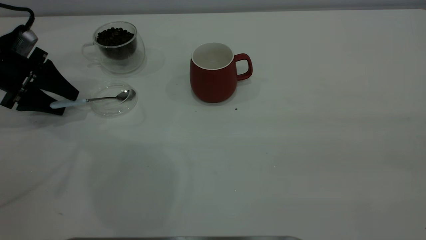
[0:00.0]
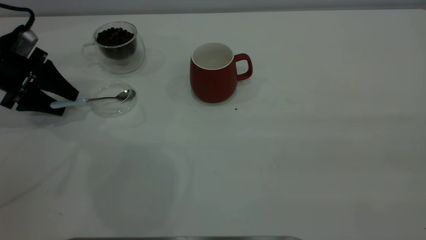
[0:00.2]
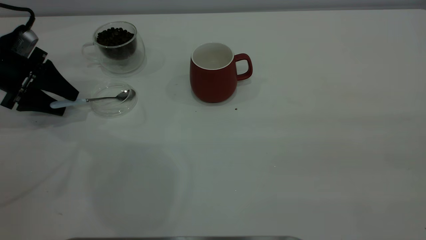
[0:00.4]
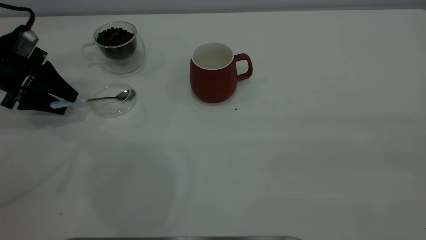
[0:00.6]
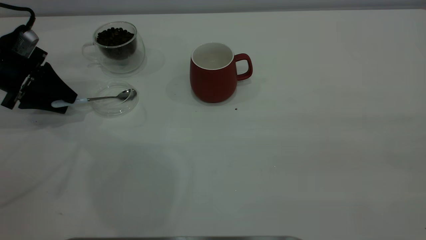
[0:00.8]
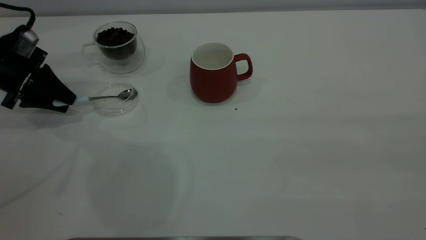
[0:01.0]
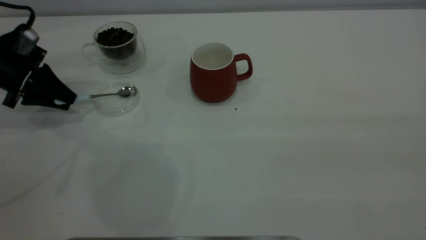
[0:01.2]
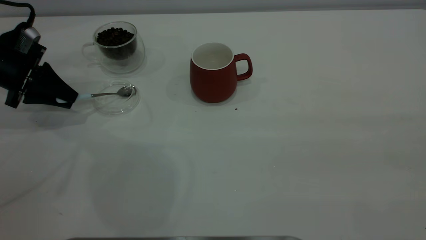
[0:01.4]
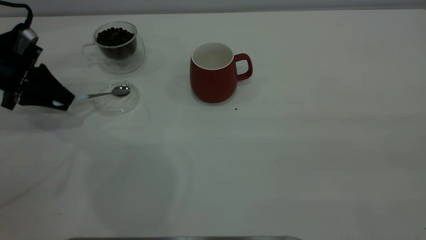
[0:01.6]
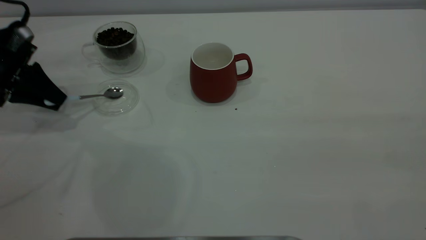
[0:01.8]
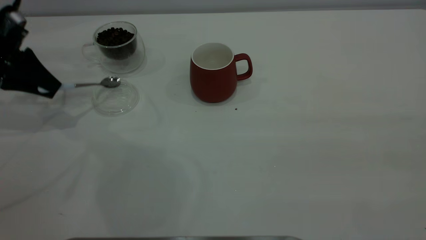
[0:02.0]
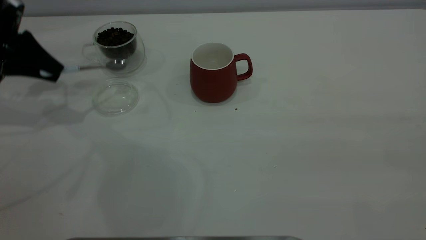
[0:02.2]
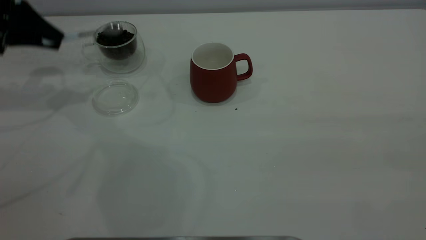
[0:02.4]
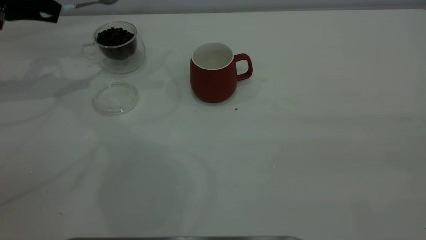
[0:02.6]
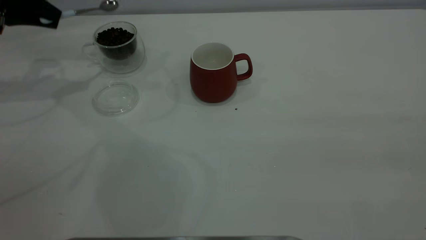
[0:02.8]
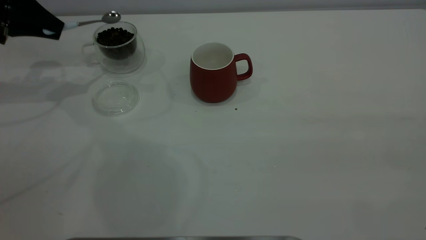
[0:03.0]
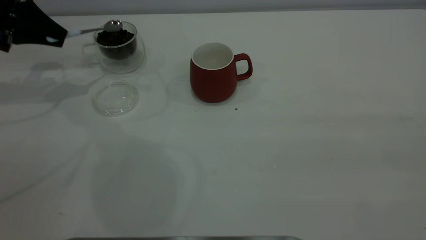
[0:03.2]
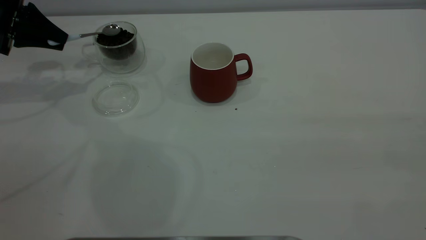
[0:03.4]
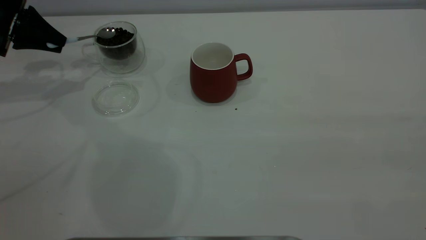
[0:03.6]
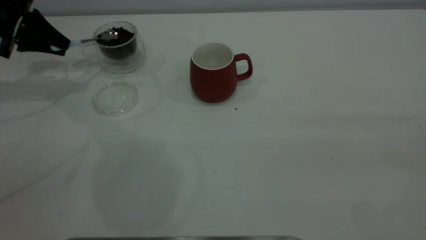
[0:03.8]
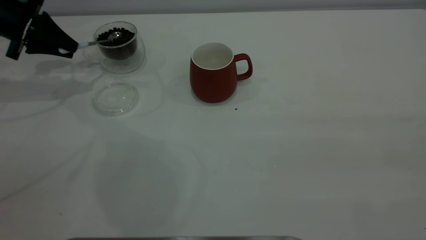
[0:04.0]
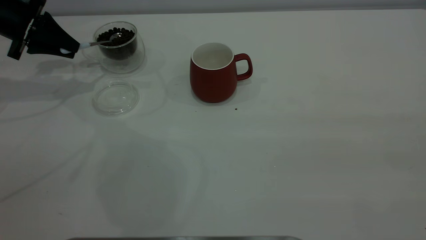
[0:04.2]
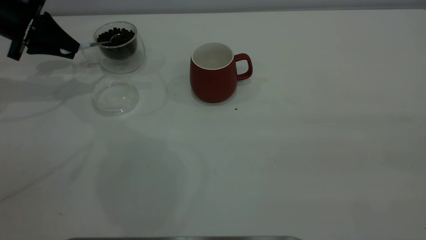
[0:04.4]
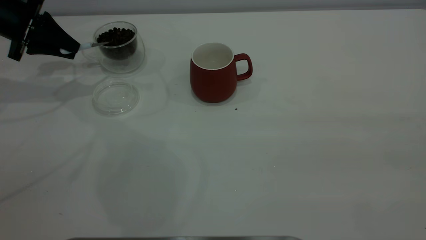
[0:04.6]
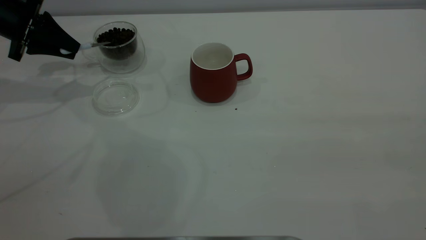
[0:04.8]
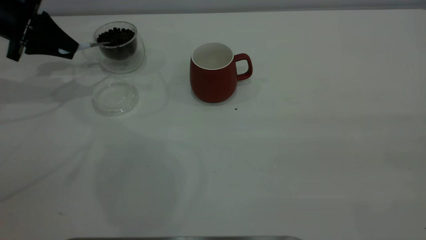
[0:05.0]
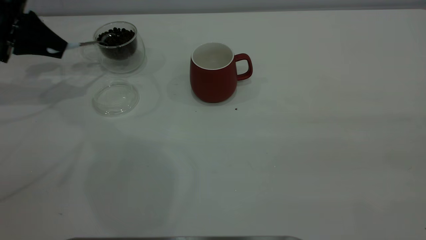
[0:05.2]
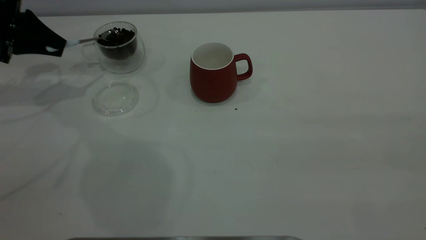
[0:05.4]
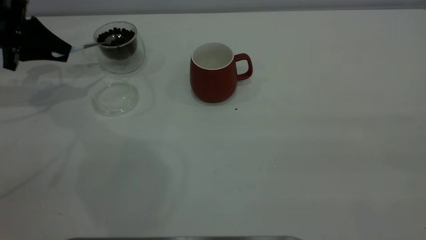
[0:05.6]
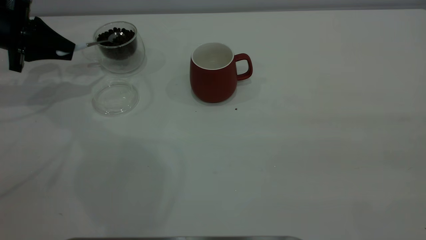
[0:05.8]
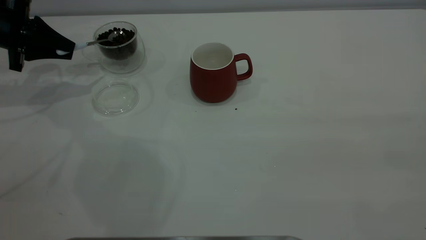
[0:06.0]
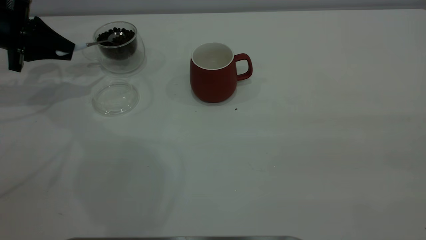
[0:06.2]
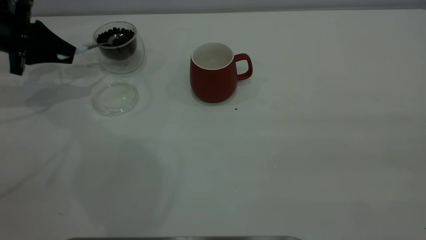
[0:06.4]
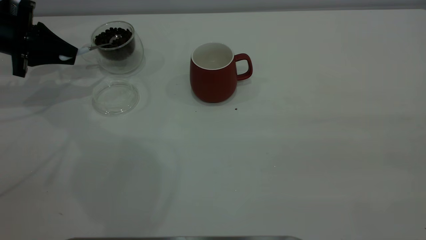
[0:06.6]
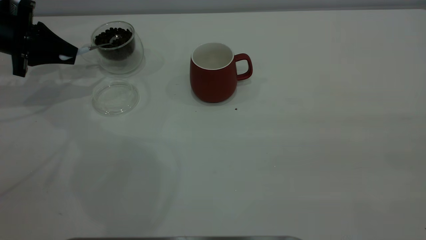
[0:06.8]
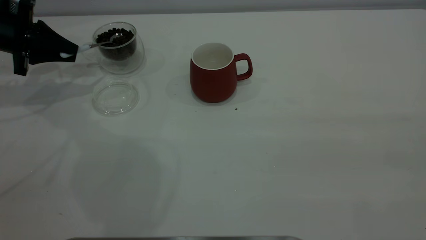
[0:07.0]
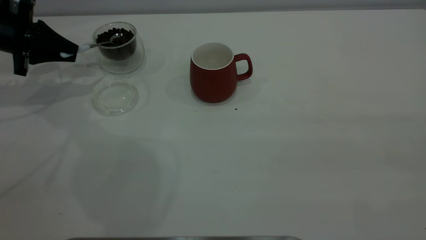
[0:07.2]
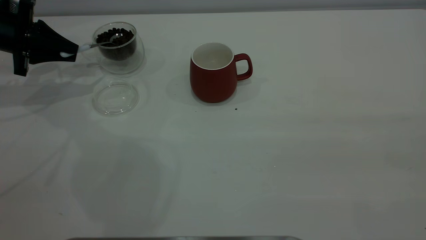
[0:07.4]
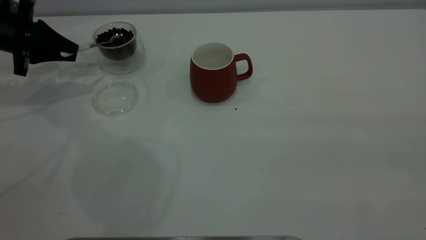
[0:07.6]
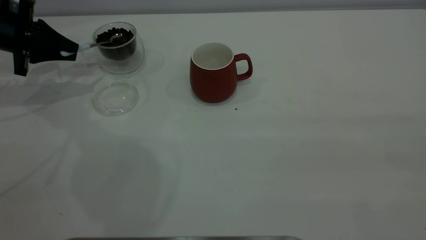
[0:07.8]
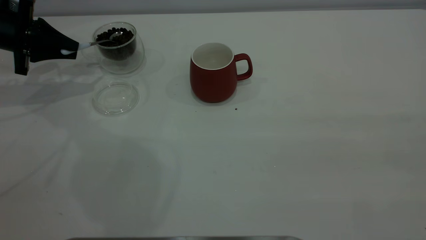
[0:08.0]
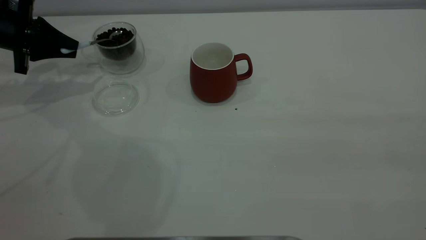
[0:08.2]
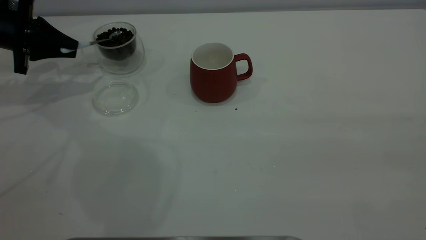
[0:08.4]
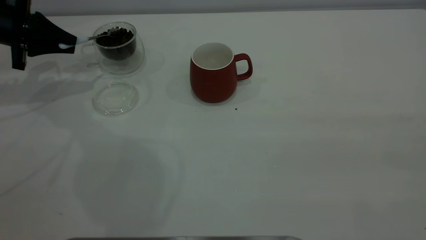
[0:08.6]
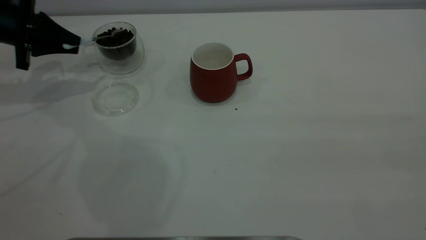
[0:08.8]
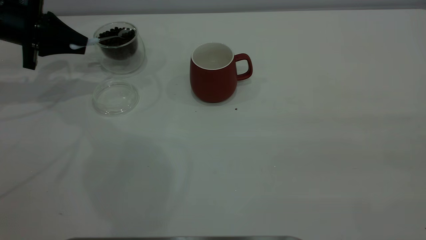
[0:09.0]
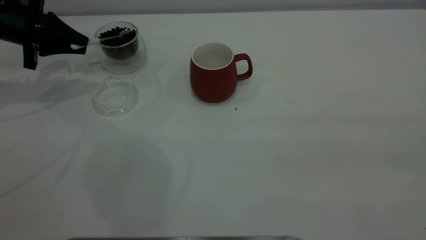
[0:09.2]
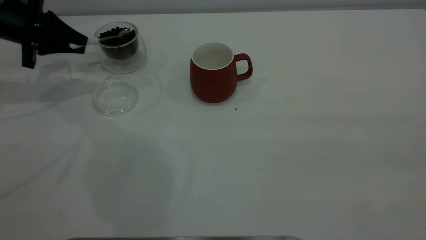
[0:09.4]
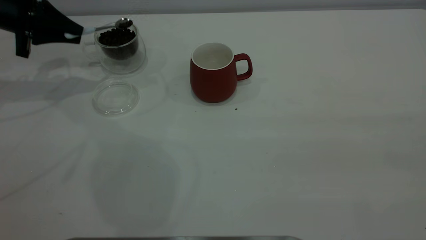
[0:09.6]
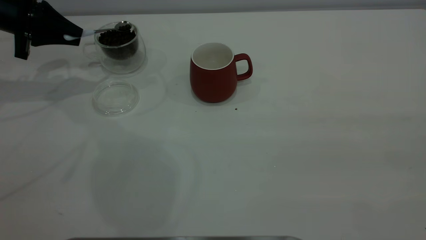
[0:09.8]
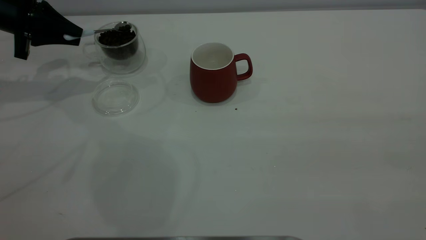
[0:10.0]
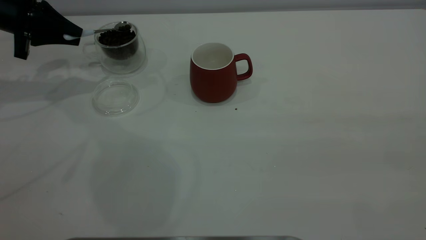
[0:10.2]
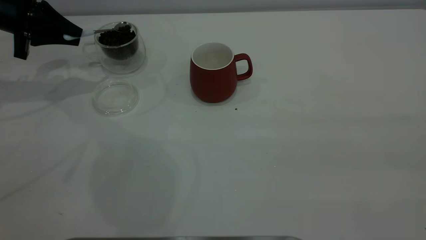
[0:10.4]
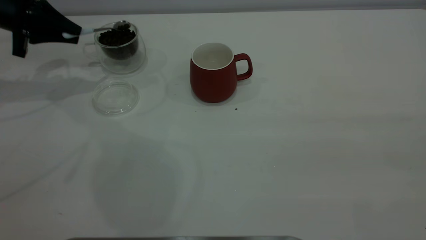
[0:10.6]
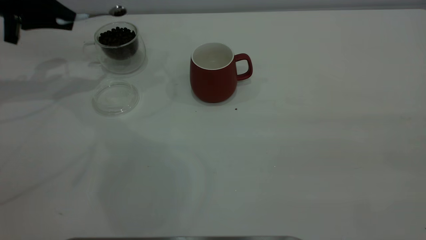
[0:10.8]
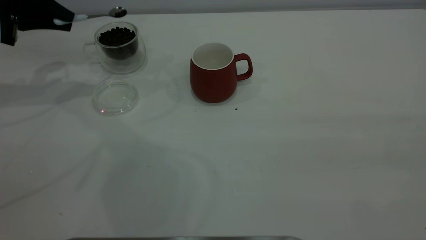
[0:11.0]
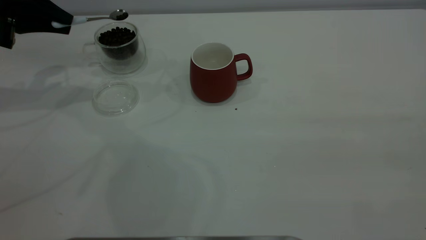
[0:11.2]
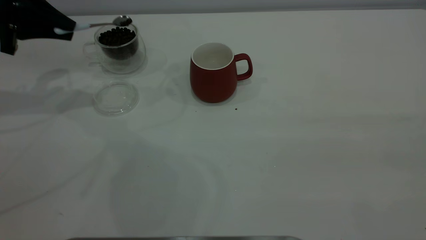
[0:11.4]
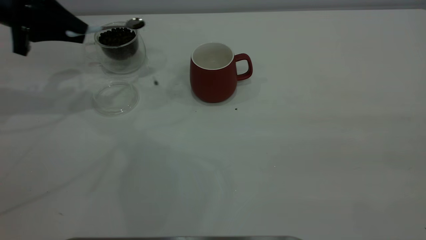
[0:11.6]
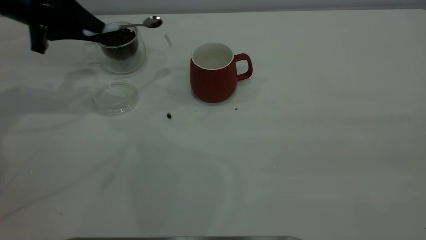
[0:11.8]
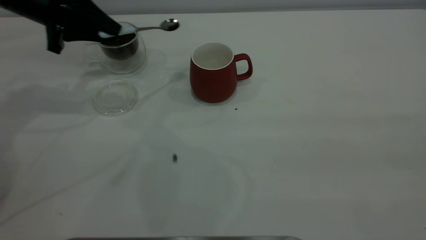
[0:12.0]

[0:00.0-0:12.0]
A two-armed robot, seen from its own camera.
Task of the whole recording: the right gripper place the red cup in the center of the table, the left gripper take the blue spoon from the cup lid and scoop out the coffee beans from the coffee cup and put them into the red cup, the left gripper put the spoon back into the cup lid.
Step, 0.0 to 2.2 s: Pick up the spoon.
0.0 to 1.6 s: The left gripper closes its fingers.
1.6 to 3.0 s: The left gripper heads upward and forward, covering some 10 cm.
3.0 to 6.0 s: The grippers move only a little.
6.0 to 7.6 s: Neither gripper changes place.
7.6 to 10.4 s: There are only small adjustments of the grippers.
10.4 to 12.0 s: The left gripper shifts some 10 cm to the right.

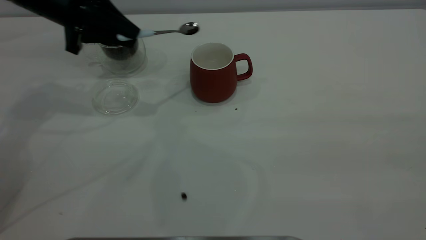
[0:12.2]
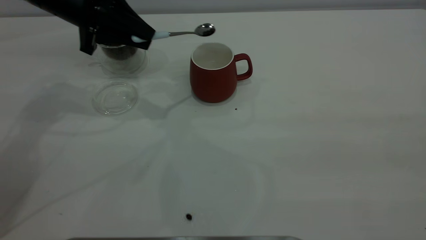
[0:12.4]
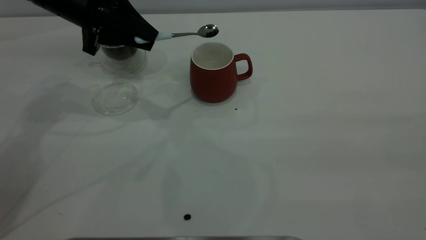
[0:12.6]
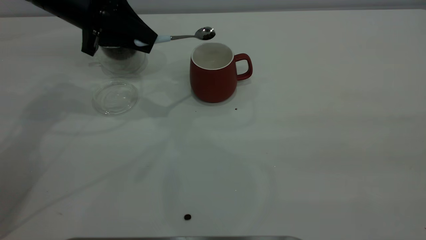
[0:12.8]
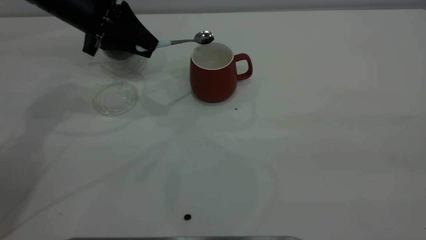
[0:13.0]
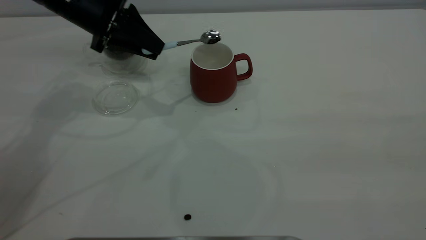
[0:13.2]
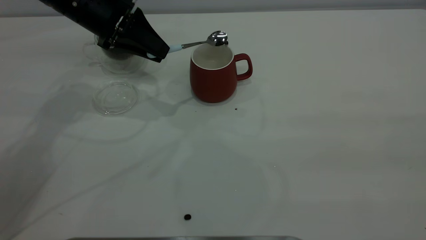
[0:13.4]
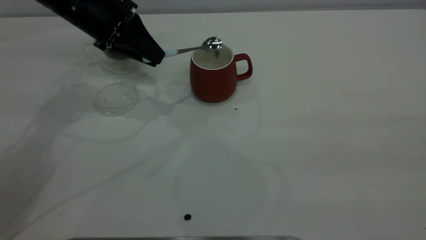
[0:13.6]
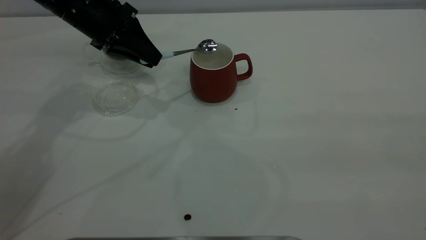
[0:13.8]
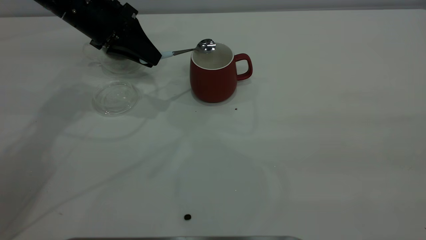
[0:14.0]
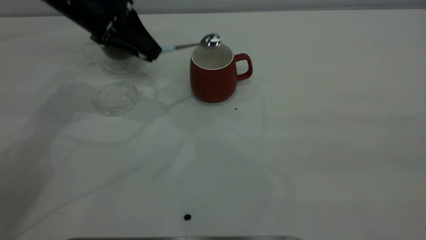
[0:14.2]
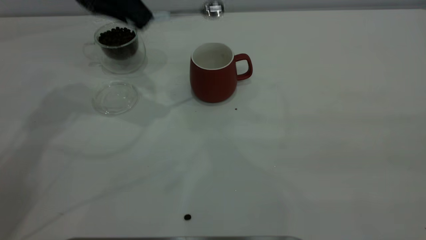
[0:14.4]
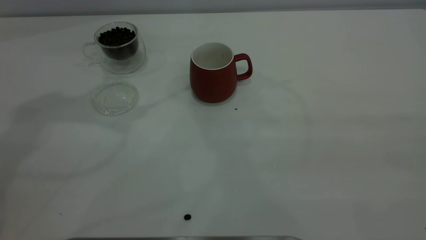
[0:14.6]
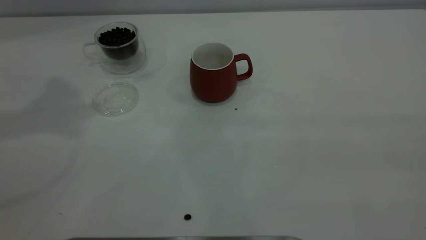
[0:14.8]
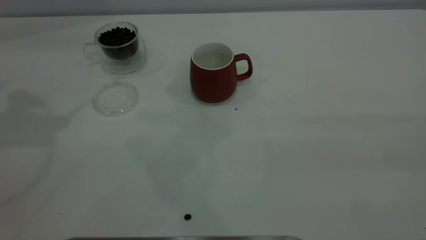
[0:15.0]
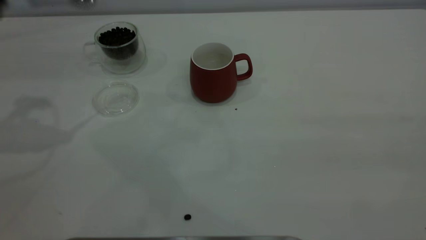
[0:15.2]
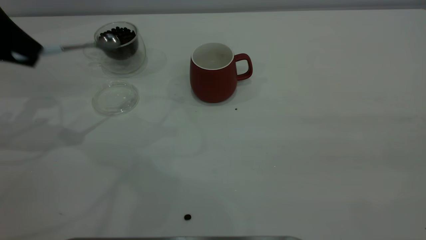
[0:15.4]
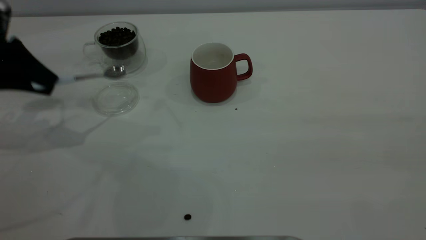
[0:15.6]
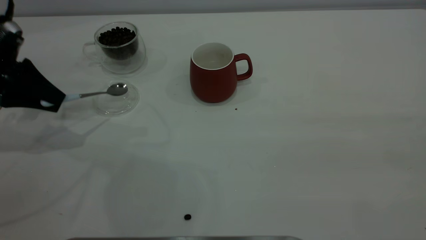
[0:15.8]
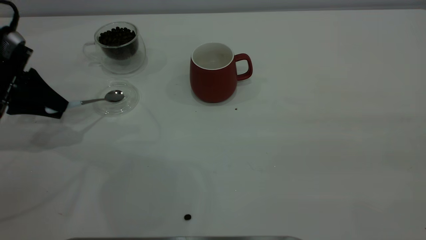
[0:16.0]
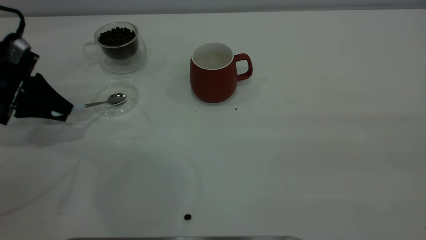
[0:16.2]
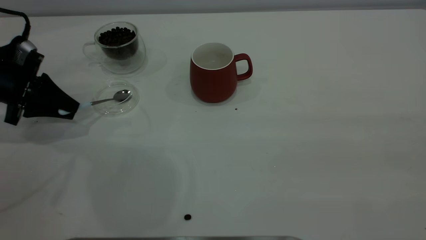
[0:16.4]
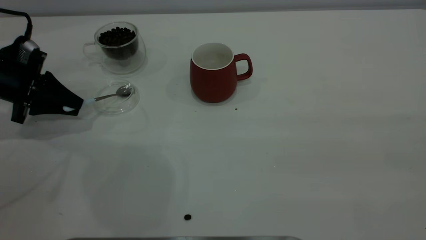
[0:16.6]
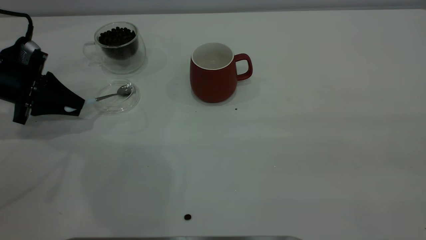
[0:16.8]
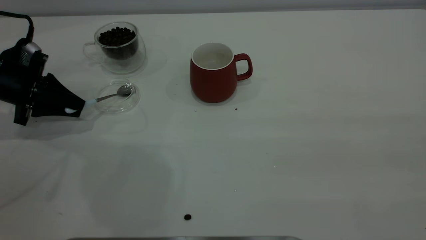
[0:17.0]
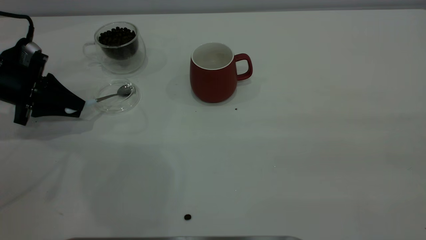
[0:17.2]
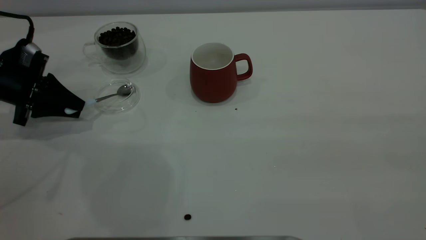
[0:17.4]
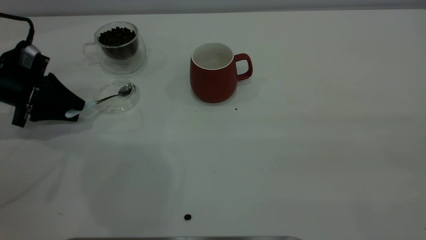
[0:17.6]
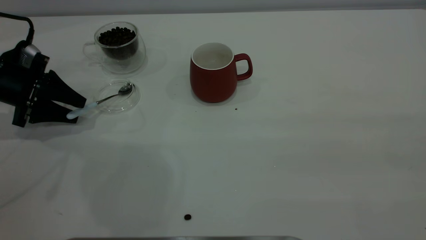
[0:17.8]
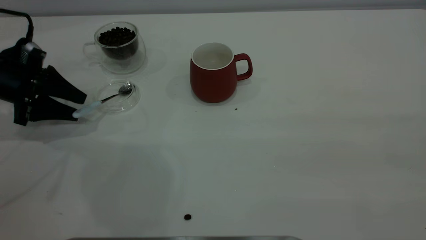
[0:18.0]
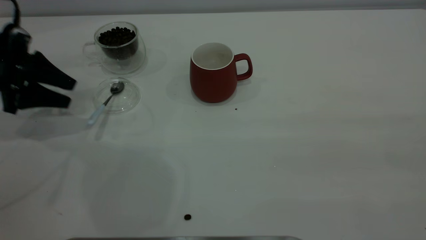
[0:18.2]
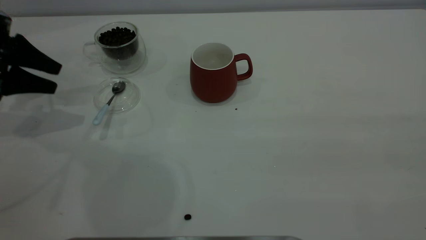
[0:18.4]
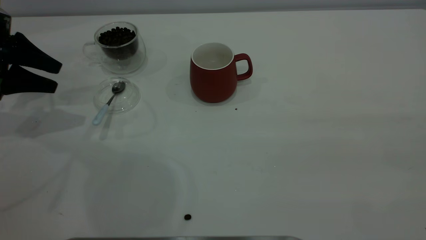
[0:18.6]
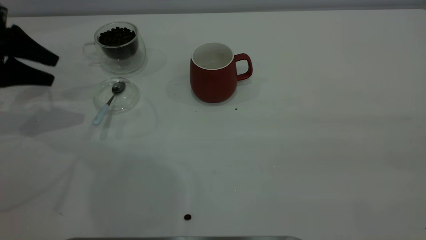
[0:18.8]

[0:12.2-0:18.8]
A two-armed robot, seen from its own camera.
Task of the whole recording: the right gripper place the red cup in the center of the table, the left gripper take the blue spoon from the cup lid and scoop out the coffee beans from the coffee cup and put them into the red cup, the left gripper put the spoon back into the cup lid.
Step, 12.2 to 14.2 s: Scoop a spoonful of beans into the cup.
Step, 14.4 to 18.2 s: Place the spoon back in its original place.
13.8 to 15.4 s: The left gripper moves to the left and backward, roughly 15 cm, and moves some 25 cm upward and comes back.
15.4 to 17.2 s: The left gripper shifts roughly 10 cm downward.
17.2 to 18.8 s: The left gripper is displaced upward by some 10 cm, and opens.
